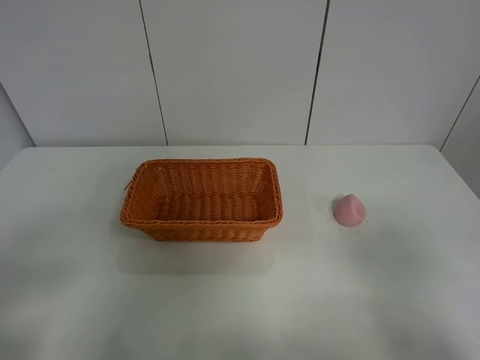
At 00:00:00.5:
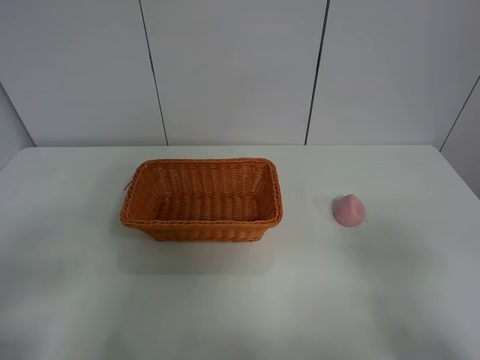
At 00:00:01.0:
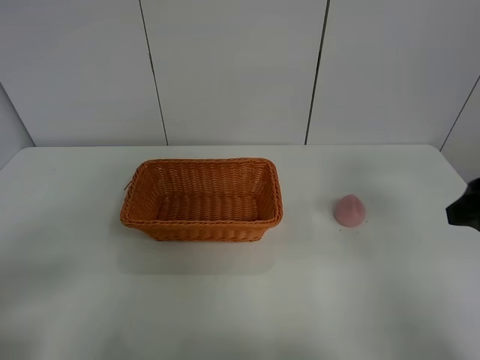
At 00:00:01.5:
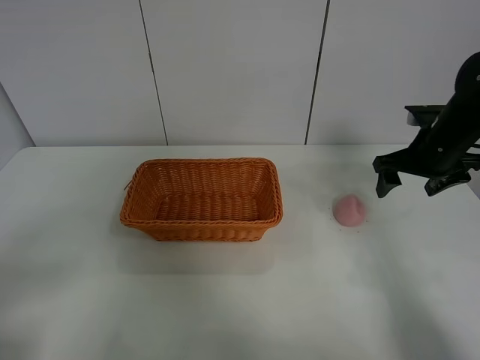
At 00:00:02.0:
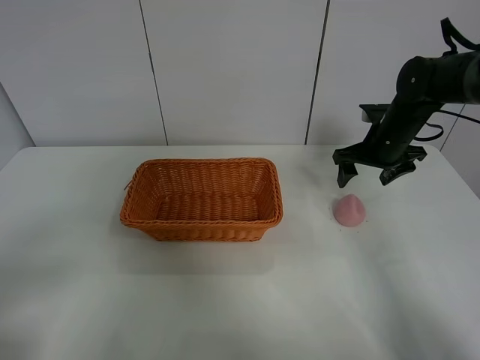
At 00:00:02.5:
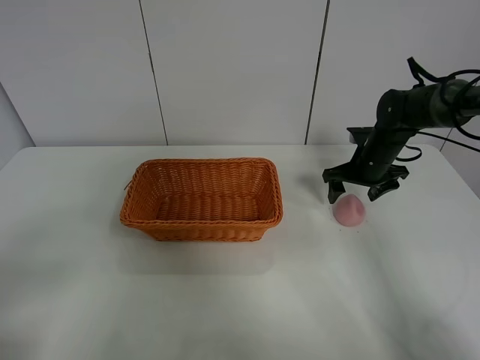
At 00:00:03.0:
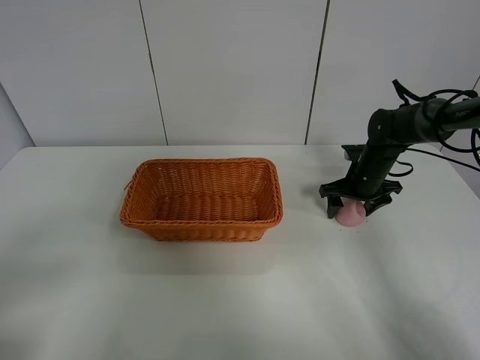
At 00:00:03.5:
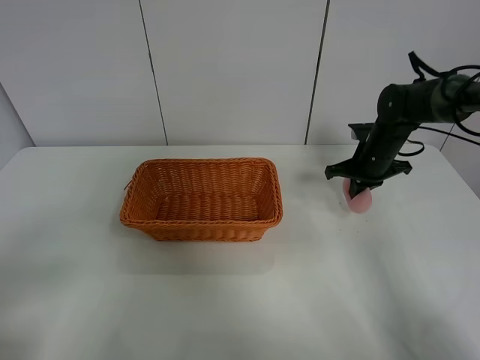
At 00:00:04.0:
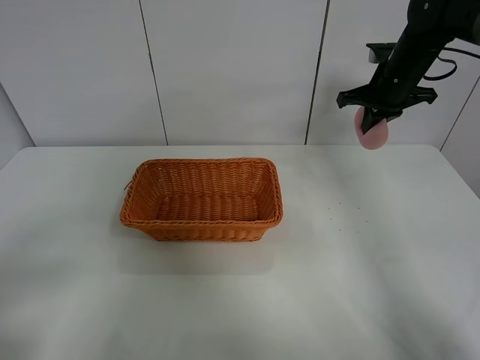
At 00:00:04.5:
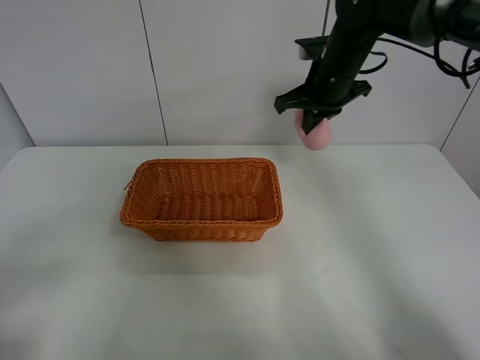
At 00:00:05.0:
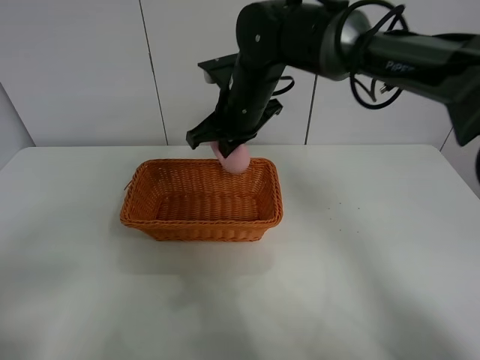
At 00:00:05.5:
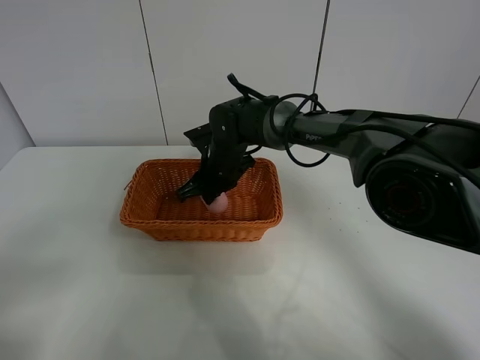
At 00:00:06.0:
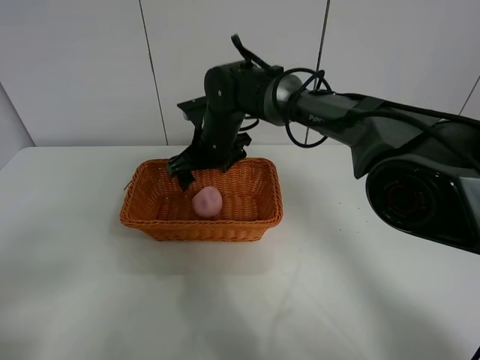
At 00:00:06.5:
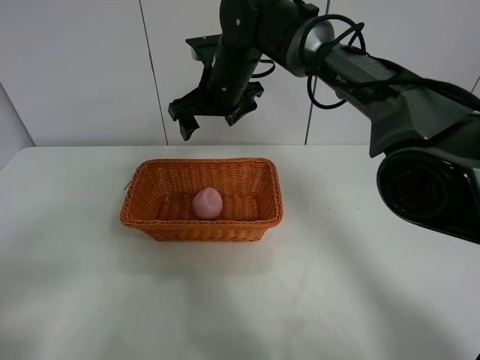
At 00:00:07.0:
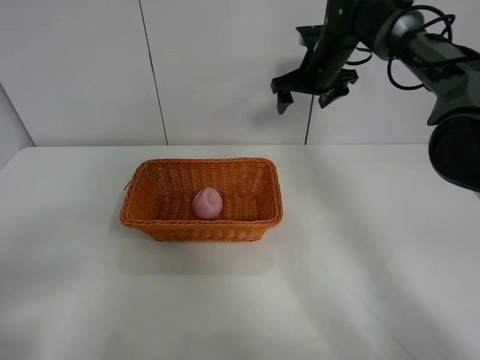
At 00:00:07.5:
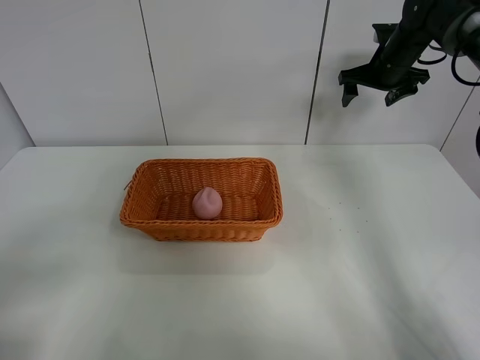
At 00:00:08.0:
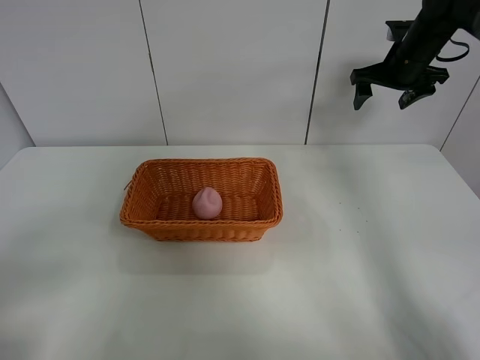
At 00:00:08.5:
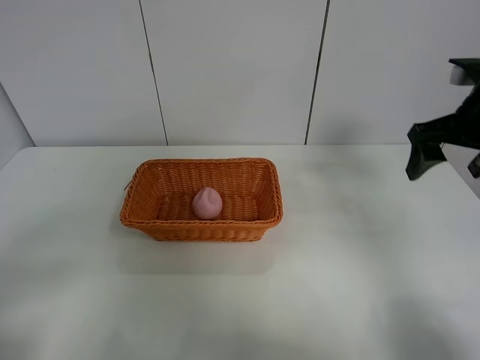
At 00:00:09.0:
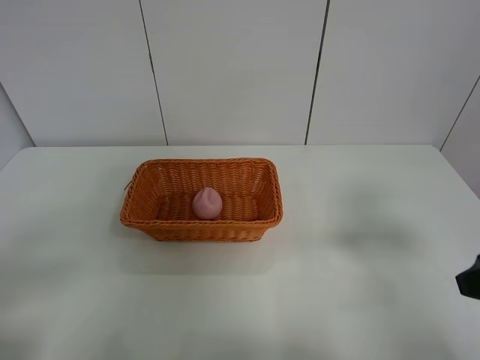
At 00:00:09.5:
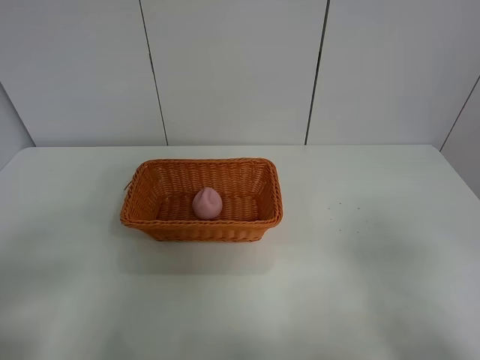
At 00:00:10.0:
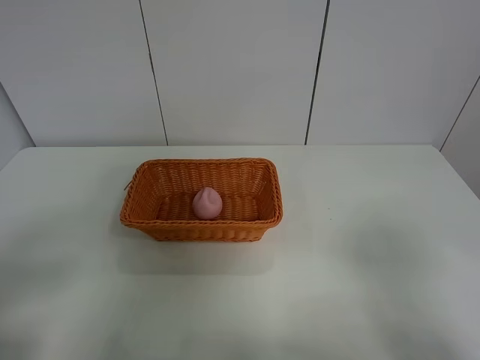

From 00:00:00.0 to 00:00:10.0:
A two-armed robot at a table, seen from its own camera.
Step, from 00:00:00.0 to 00:00:03.0: Grasp the peach with right gripper.
Step, from 00:00:03.5 to 00:00:06.0: Place the peach in the basket with right gripper.
From 00:00:00.0 to 00:00:02.0: The right gripper moves forward, roughly 40 cm.
From 00:00:02.0 to 00:00:04.0: The right gripper shifts roughly 10 cm upward, and closes.
From 00:00:04.0 to 00:00:06.0: The right gripper is displaced to the left by some 30 cm, and opens up.
From 00:00:06.0 to 00:00:08.0: The right gripper travels to the right by approximately 30 cm.
From 00:00:08.0 to 00:00:10.0: The right gripper moves backward, approximately 50 cm.
